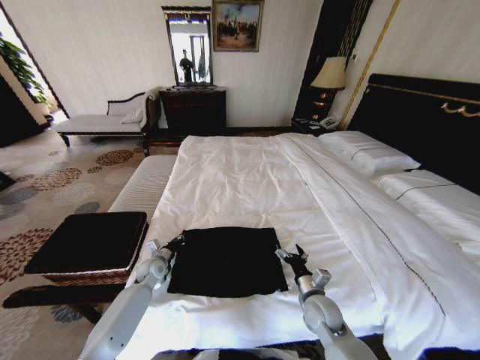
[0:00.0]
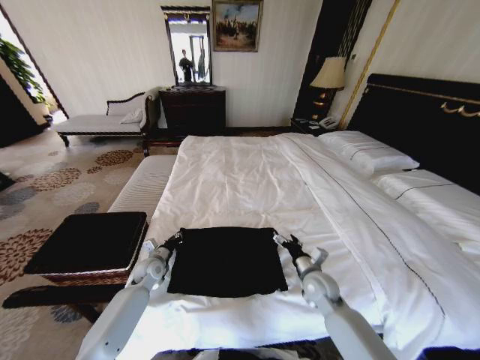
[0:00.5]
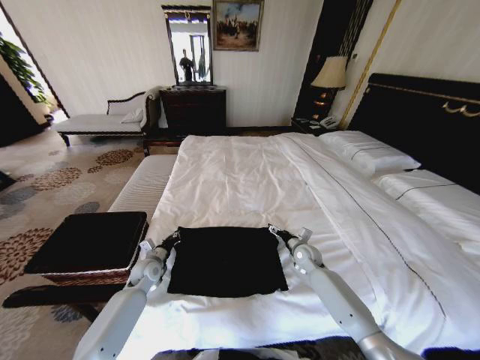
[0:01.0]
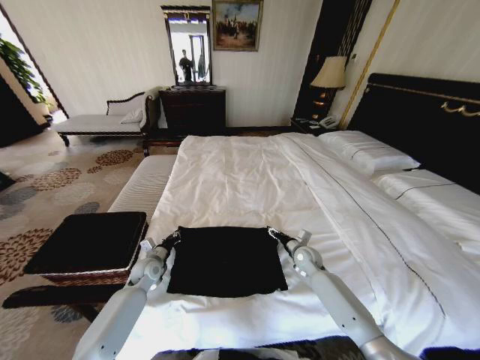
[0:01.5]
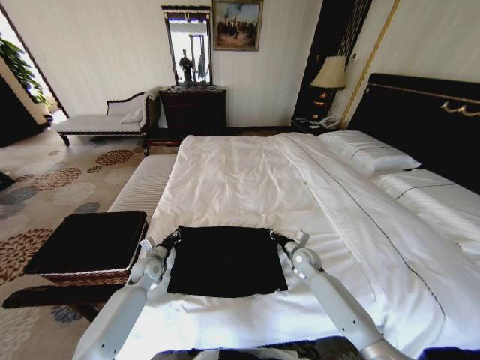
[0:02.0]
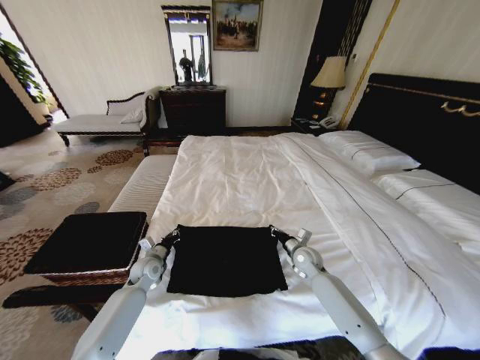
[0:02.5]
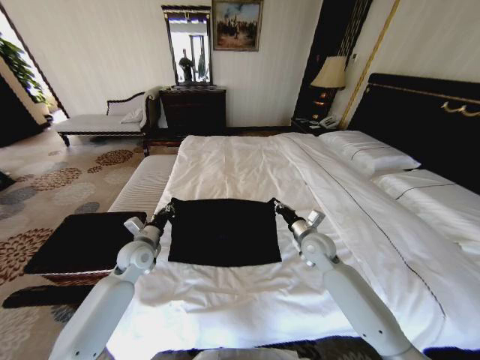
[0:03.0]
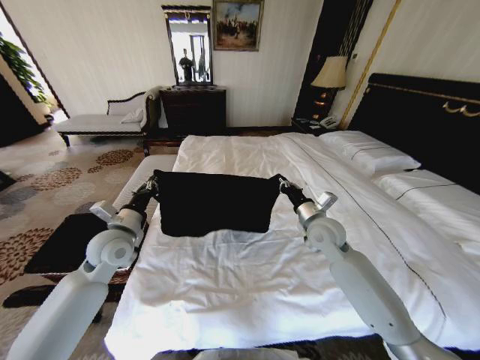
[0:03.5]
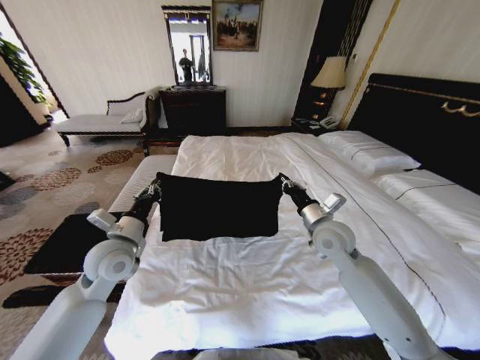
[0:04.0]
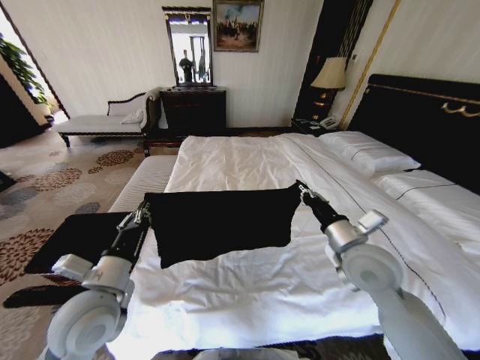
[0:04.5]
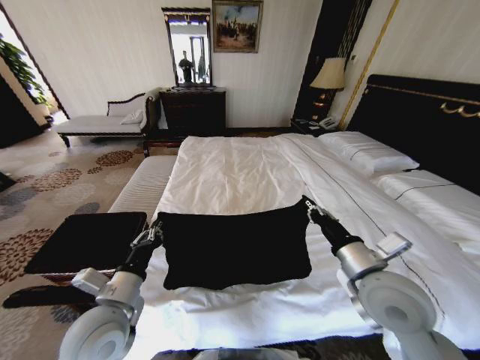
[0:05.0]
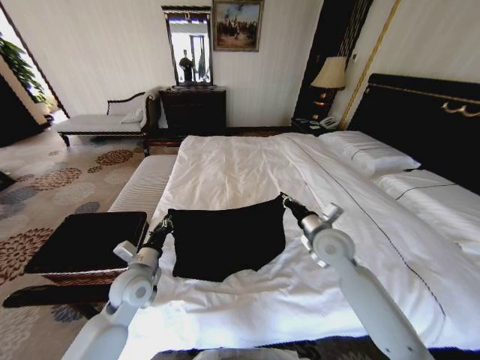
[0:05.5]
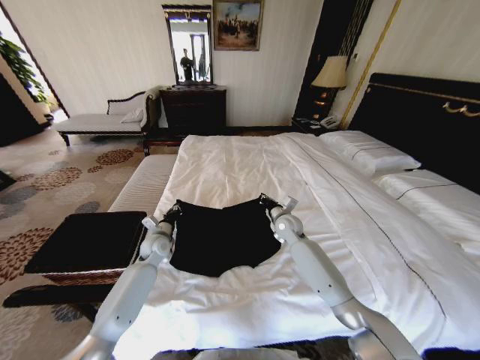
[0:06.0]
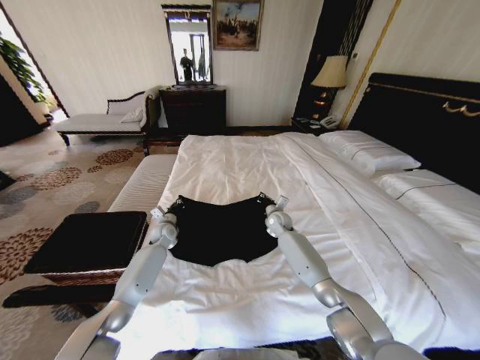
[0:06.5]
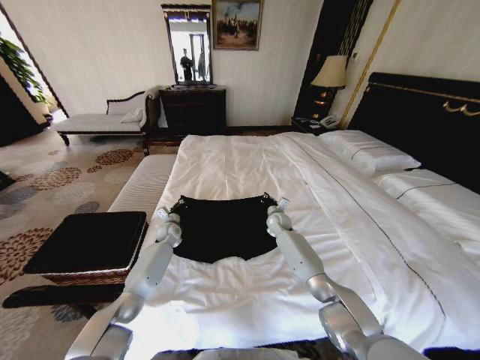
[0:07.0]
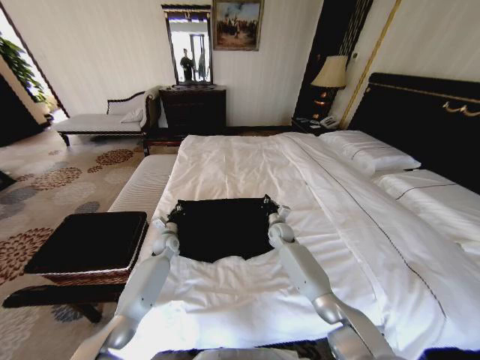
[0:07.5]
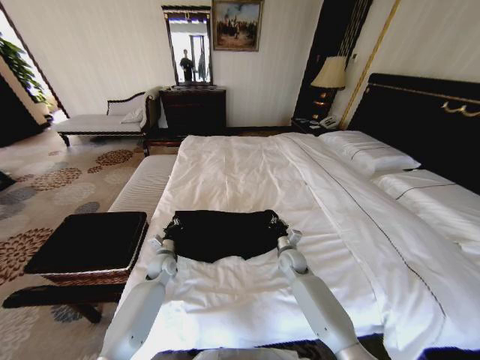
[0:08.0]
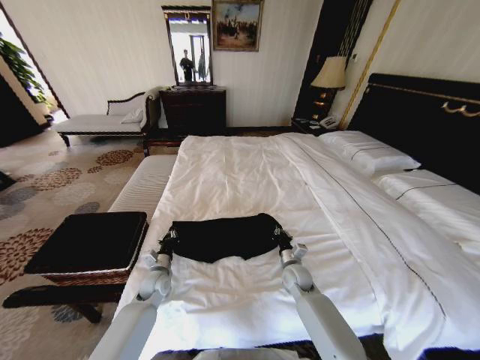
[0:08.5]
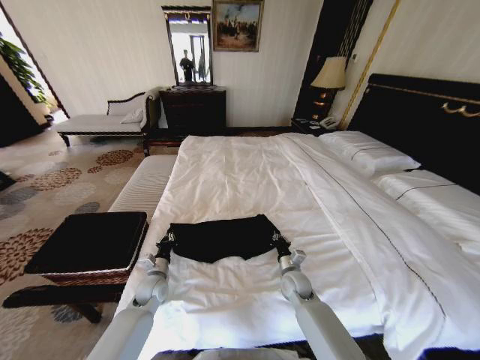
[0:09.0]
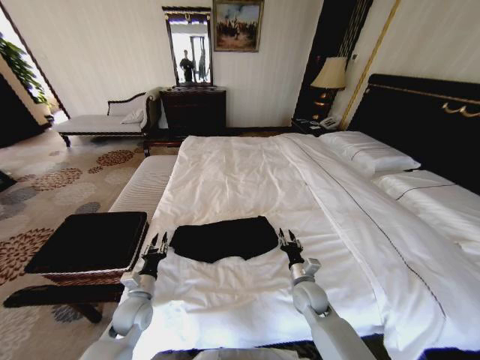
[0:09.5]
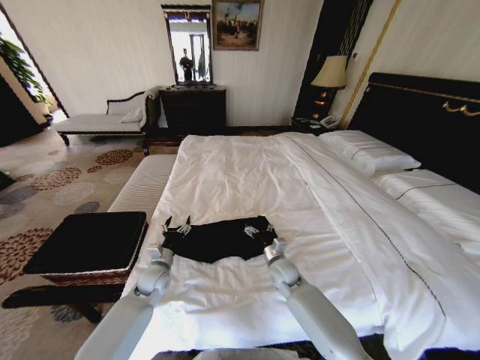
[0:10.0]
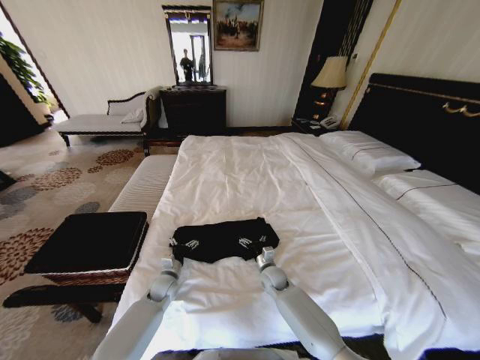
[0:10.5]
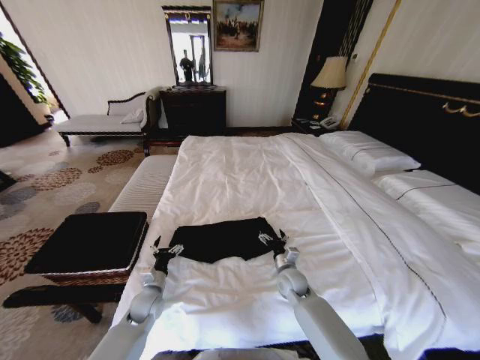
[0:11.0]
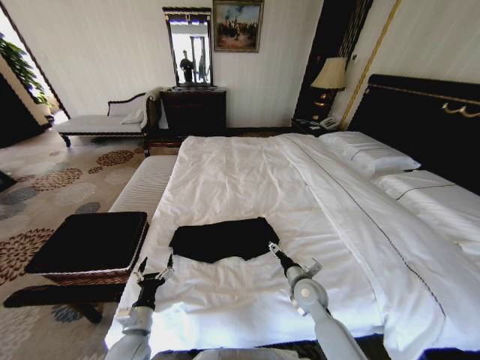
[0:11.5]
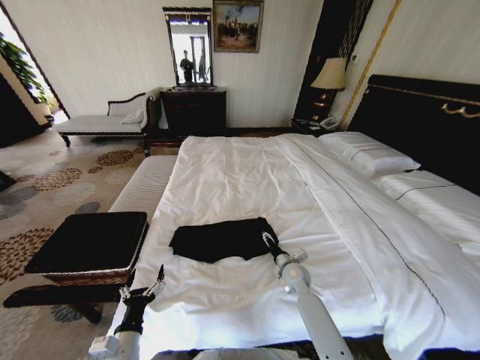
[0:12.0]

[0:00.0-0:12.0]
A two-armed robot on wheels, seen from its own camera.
Task of the whole recording: Fold the clothes on the bed and place them into the basket.
0:00.0 to 0:02.0: The right gripper is displaced forward by roughly 15 cm, and closes its fingers.
0:02.0 to 0:04.0: Both grippers travel together upward, some 20 cm.
0:04.0 to 0:06.0: The left gripper goes approximately 20 cm downward and forward, while the right gripper goes roughly 15 cm forward, downward and to the left.
0:06.0 to 0:08.0: The right gripper travels downward and backward by approximately 15 cm. The left gripper is displaced downward by about 10 cm, and travels forward and back again, approximately 10 cm each way.
0:08.0 to 0:10.0: The right gripper heads to the left, covering roughly 5 cm, and opens up. The left gripper goes some 5 cm backward, and opens.
0:10.0 to 0:12.0: The right gripper is displaced to the right by roughly 5 cm, and reaches roughly 5 cm downward, then returns. The left gripper travels backward by about 25 cm.

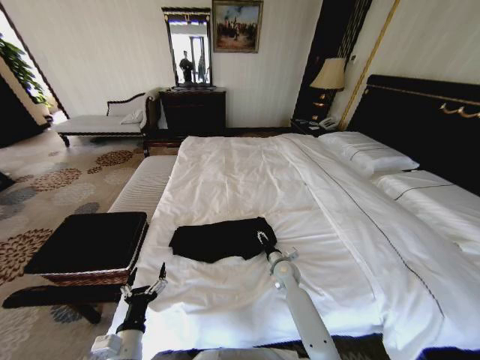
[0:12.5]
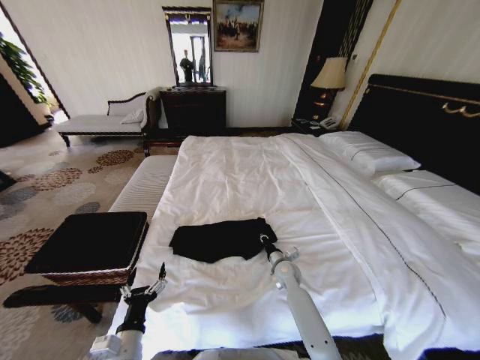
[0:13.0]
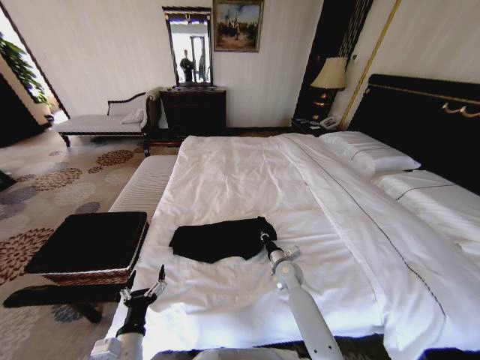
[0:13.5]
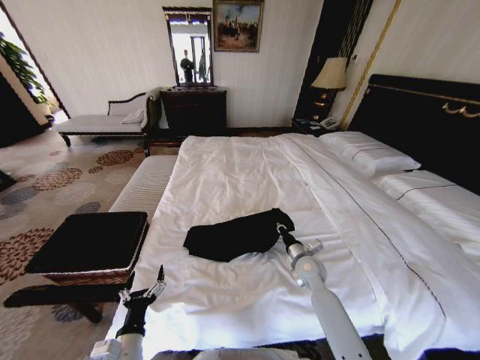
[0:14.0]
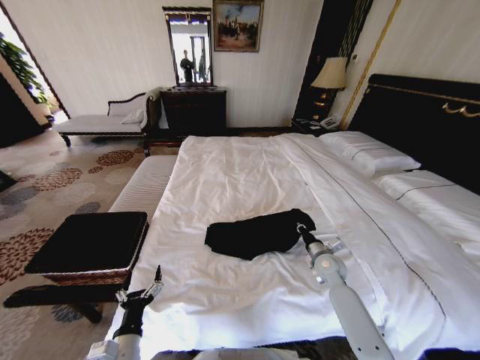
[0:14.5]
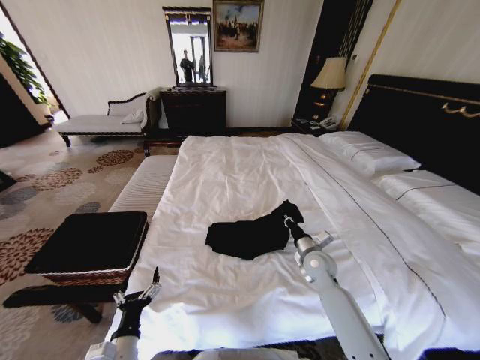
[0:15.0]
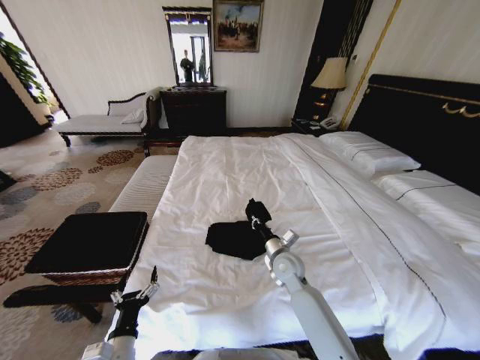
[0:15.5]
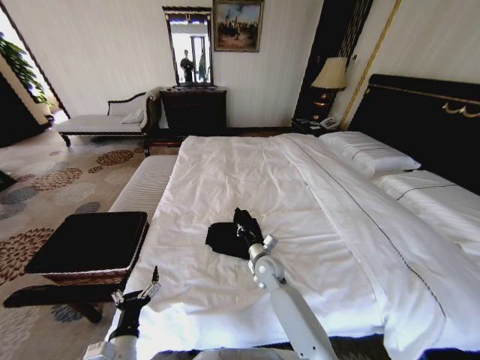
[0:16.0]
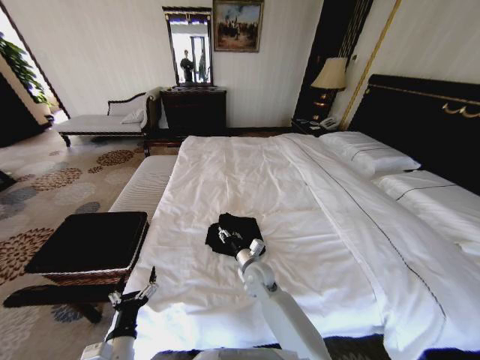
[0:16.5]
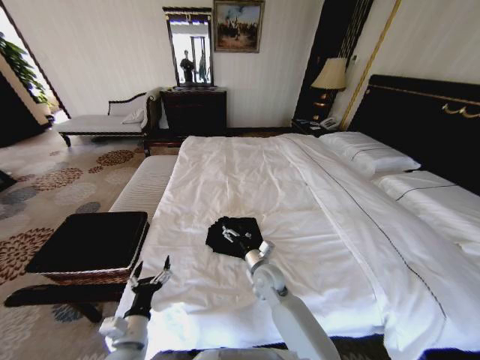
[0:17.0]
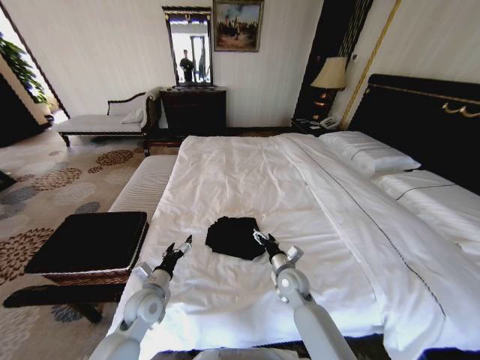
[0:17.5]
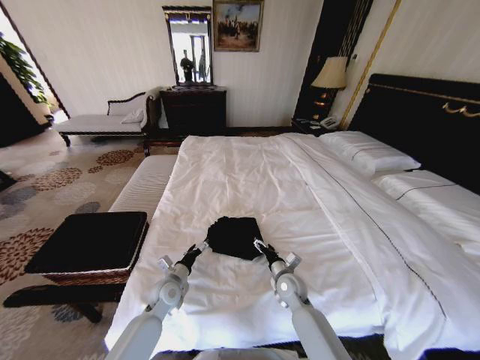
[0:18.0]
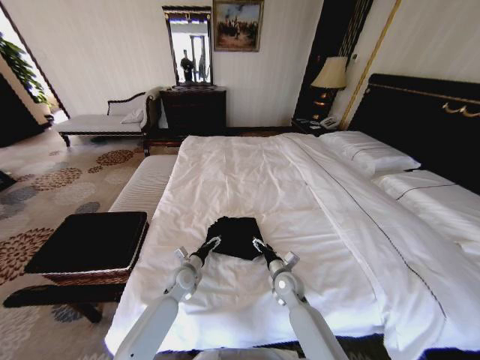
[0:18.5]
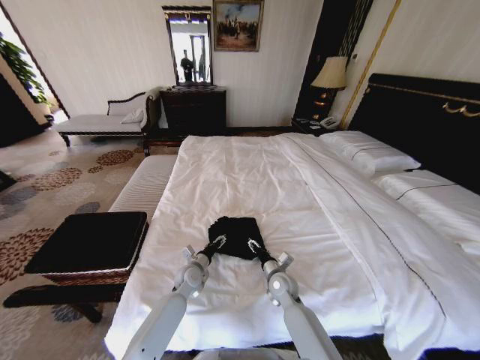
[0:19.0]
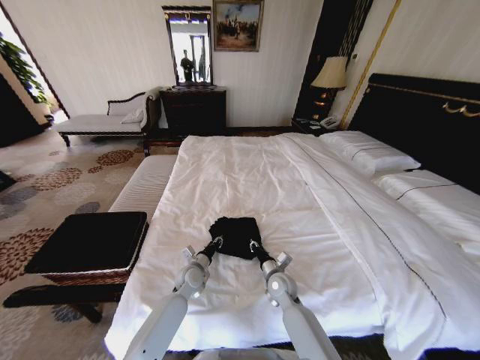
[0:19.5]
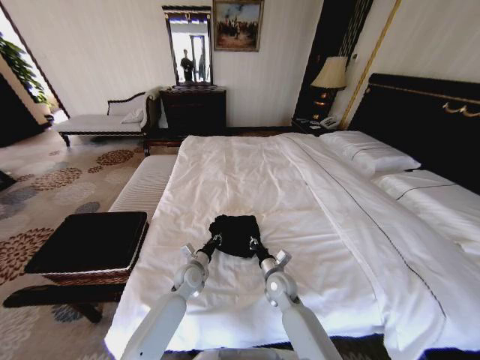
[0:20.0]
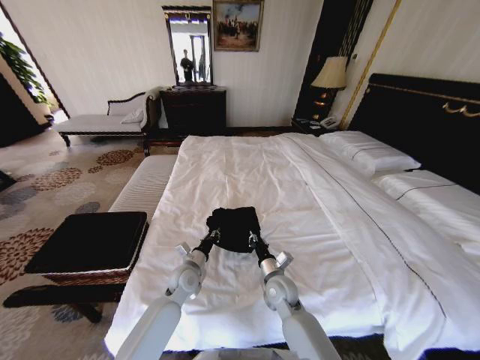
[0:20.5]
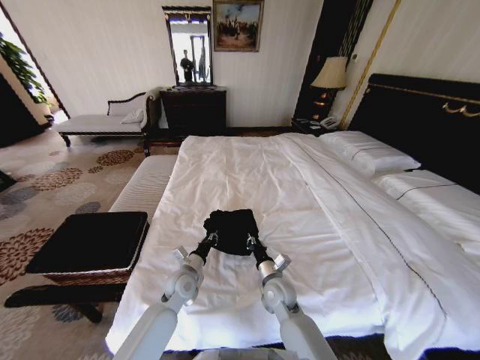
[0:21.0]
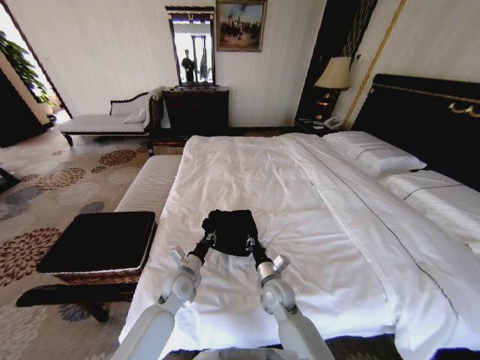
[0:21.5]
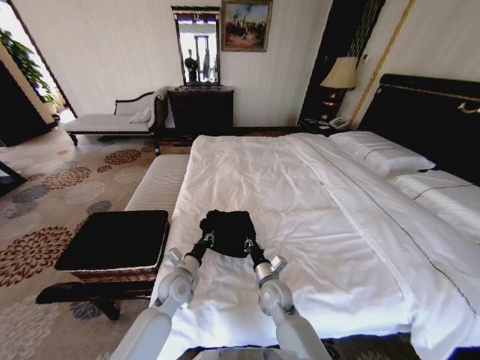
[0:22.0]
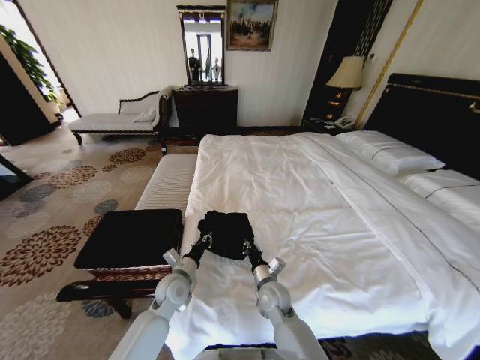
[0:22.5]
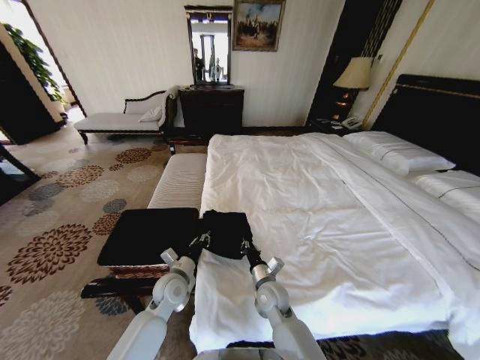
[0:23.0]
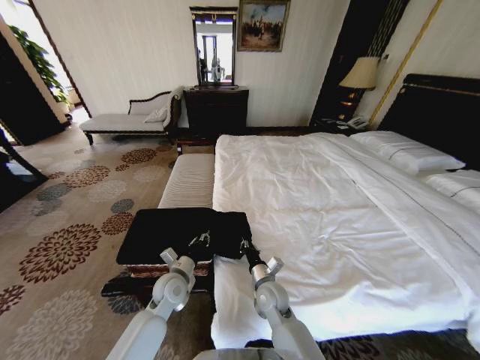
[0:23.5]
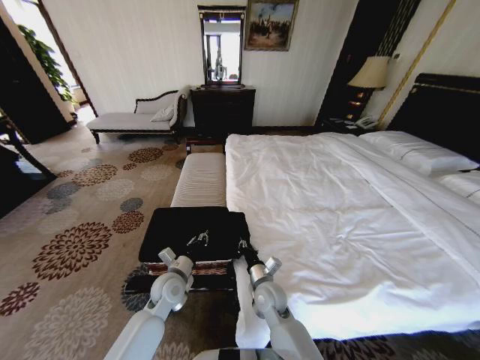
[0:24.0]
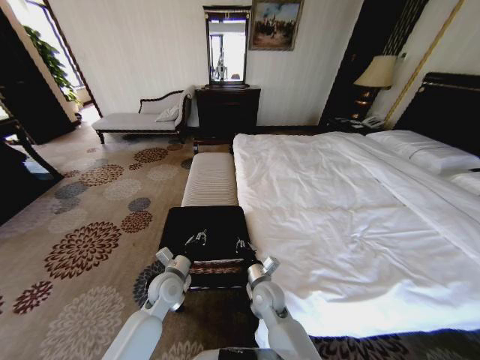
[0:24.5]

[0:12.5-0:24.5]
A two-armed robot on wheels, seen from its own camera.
Task of the whole recording: Fold the clothes on the bed and place them into the basket.
0:12.5 to 0:14.5: The right gripper shifts about 15 cm to the right and upward, and closes up.
0:14.5 to 0:16.5: The right gripper is displaced to the left by some 25 cm, and opens up.
0:16.5 to 0:18.5: The right gripper heads to the right, covering some 10 cm, and opens its fingers. Meanwhile the left gripper travels forward by some 25 cm.
0:18.5 to 0:20.5: The right gripper moves some 5 cm, and closes up. Meanwhile the left gripper ends up roughly 5 cm from where it was, and closes up.

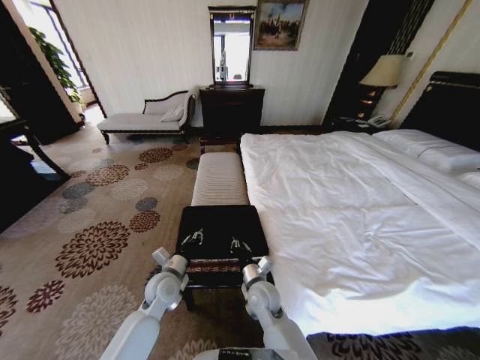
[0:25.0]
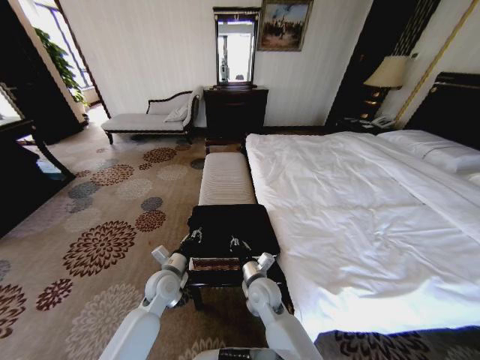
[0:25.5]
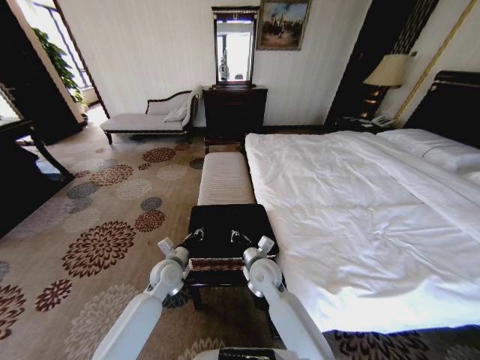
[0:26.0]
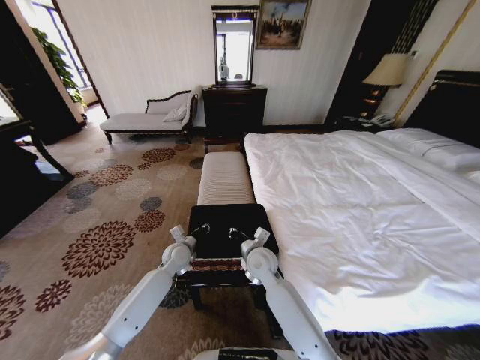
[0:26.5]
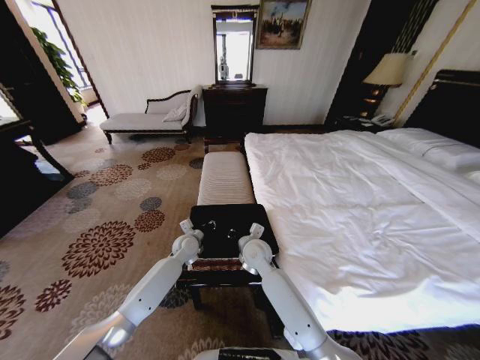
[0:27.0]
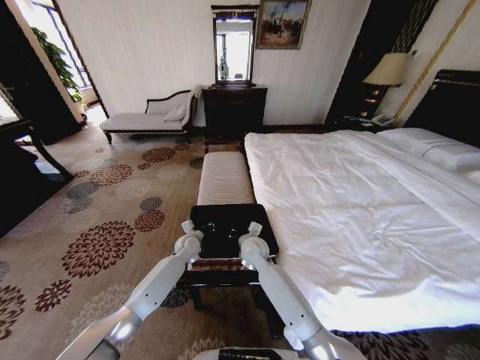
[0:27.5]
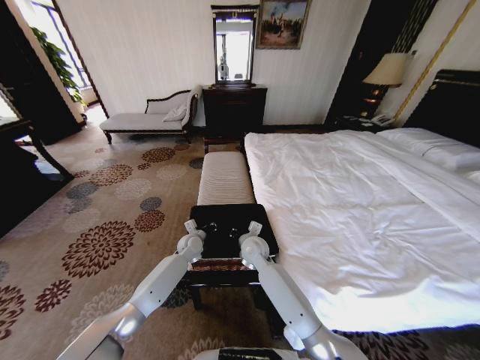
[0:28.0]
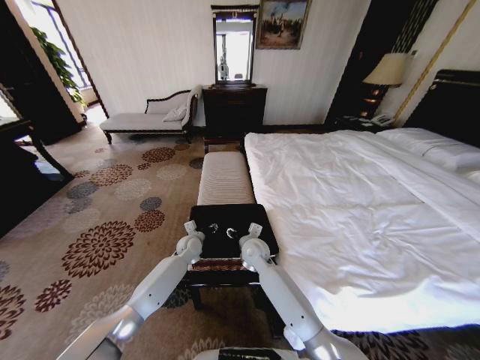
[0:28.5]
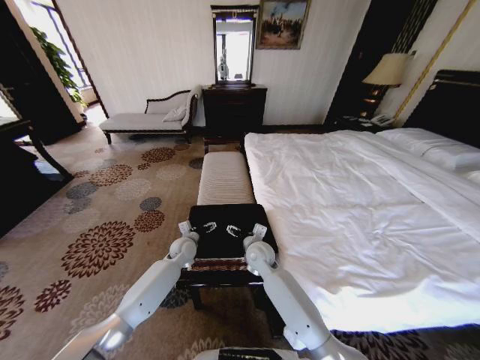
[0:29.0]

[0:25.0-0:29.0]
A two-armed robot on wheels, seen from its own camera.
Task of the whole recording: Fold the clothes on the bed and place them into the basket.
0:25.0 to 0:27.0: The right gripper shifts approximately 15 cm forward and upward. The left gripper goes some 15 cm forward.
0:27.0 to 0:29.0: The left gripper opens its fingers. The right gripper opens its fingers.
